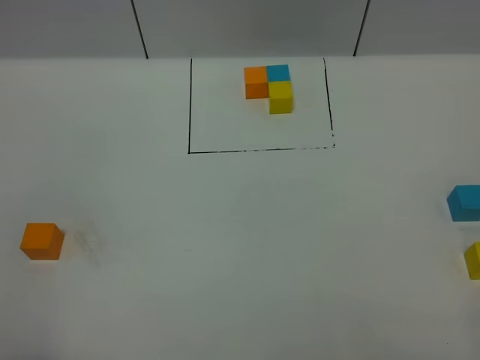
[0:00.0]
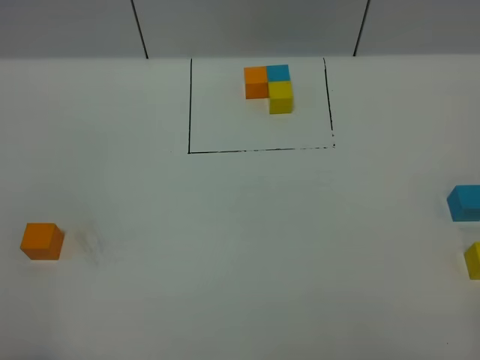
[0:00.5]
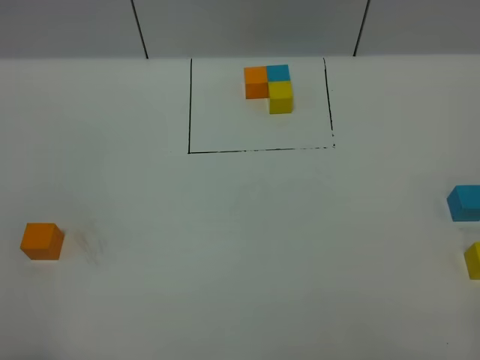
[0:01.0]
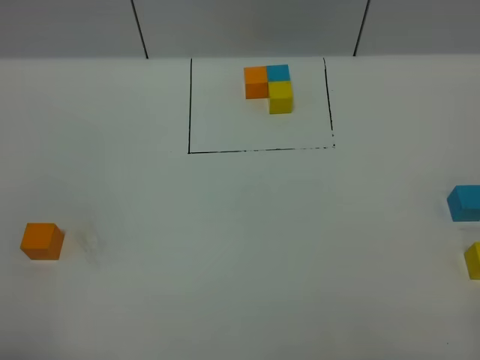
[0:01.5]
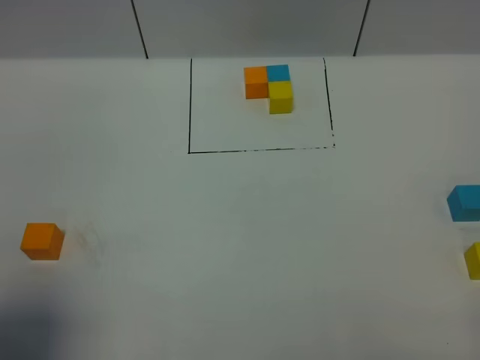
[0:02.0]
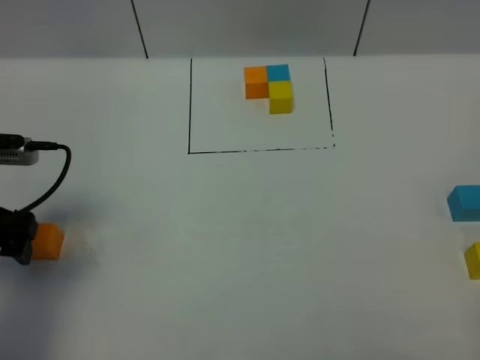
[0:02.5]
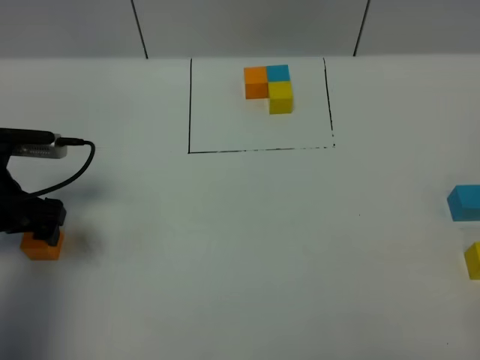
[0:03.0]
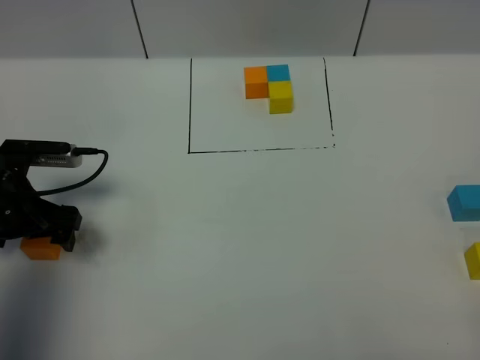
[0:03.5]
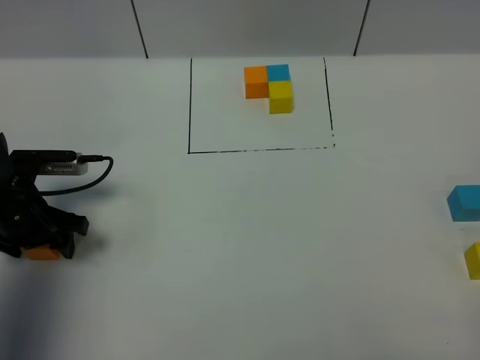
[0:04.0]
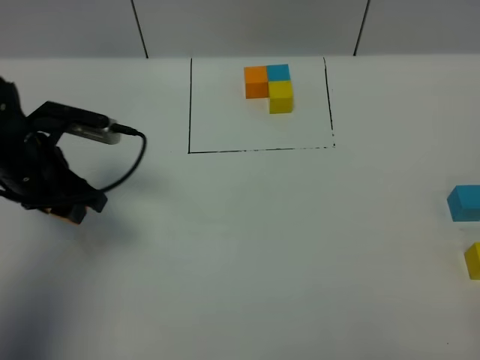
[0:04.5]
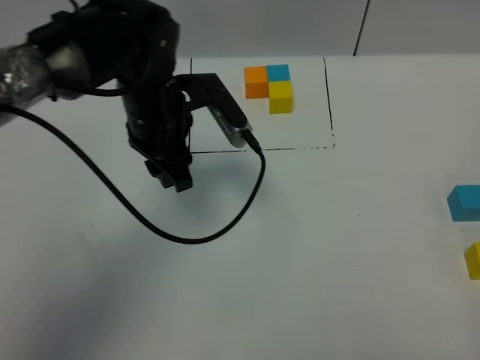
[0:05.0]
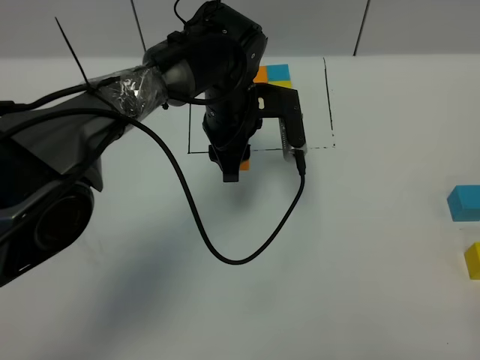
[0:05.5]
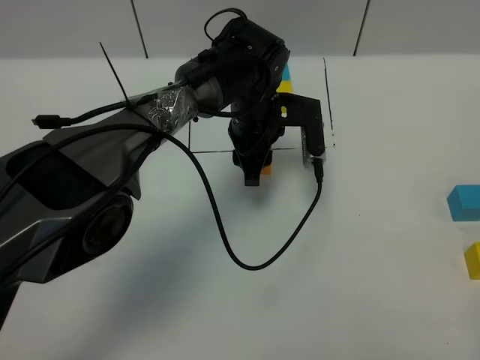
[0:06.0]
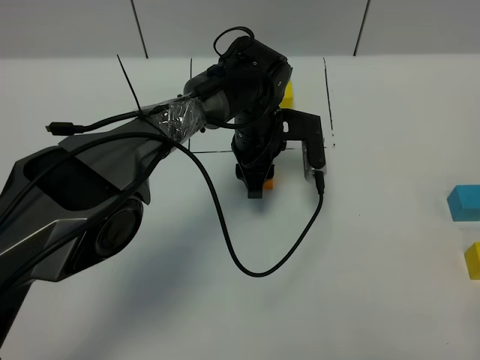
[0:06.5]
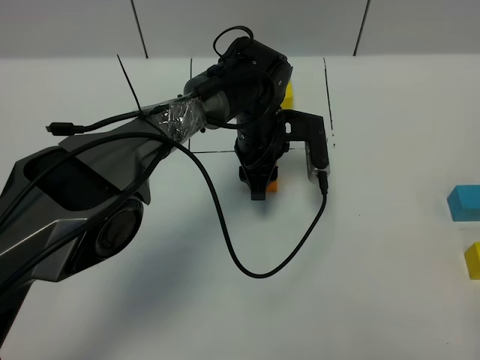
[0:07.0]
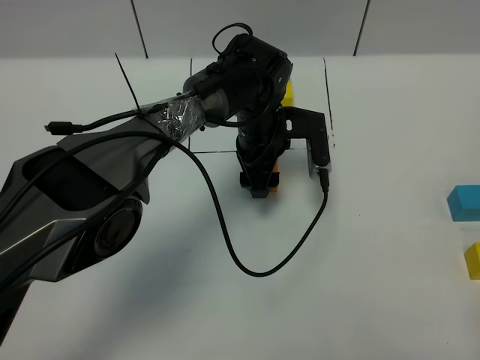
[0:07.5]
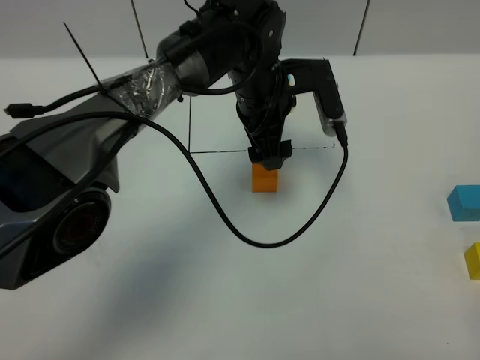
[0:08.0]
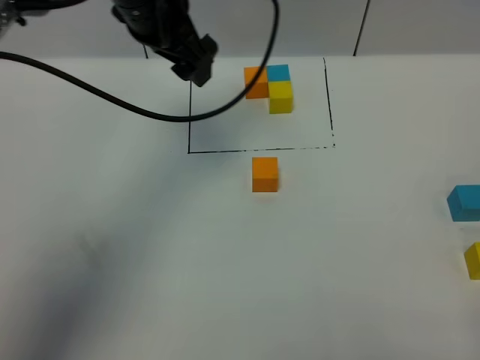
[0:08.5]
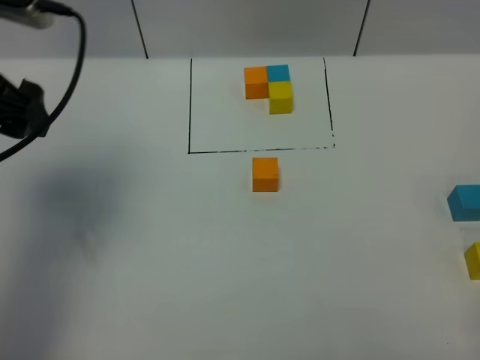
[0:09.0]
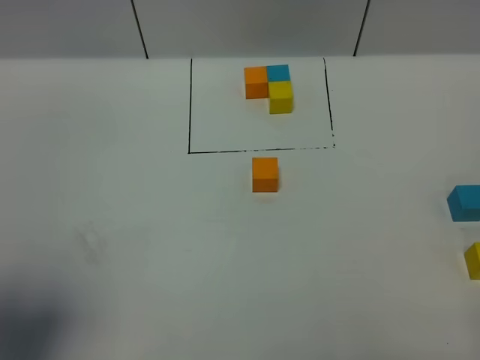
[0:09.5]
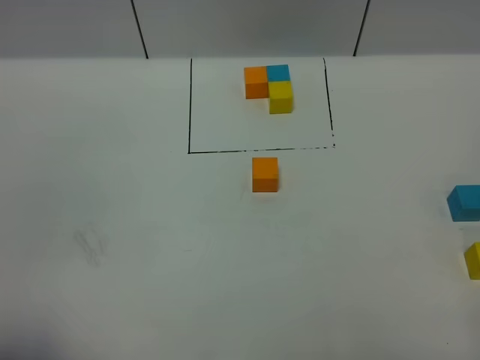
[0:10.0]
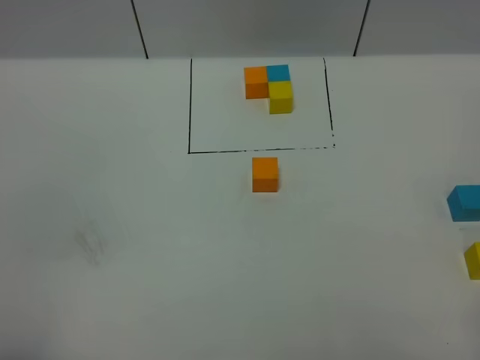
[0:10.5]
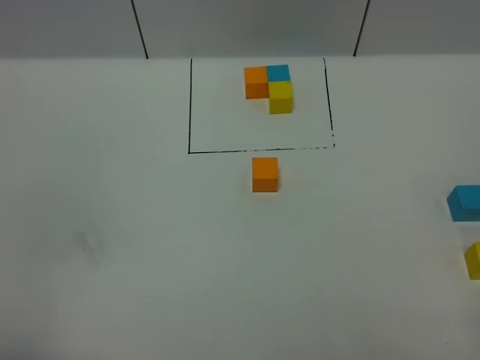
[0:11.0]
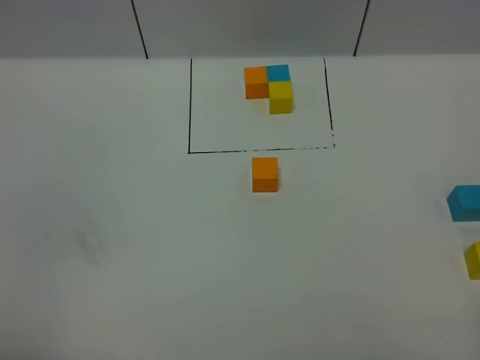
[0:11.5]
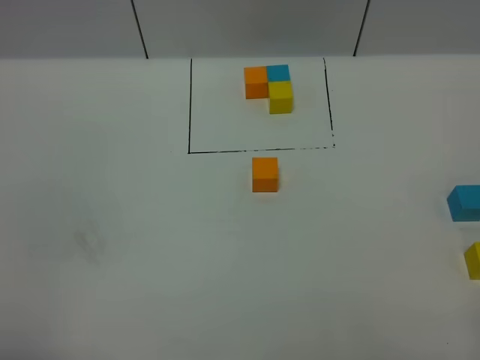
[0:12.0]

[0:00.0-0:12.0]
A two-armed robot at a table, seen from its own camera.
Task of the whole recording: According to the building block template in front, assemble the scattered blocks together.
Step, 0:00.0 to 0:07.0: Put the orange build block in the center of the table.
0:00.0 to 0:02.0: The left gripper shifts about 10 cm forward, and opens up.
0:02.0 to 0:04.0: The left gripper moves downward and forward, roughly 30 cm, and closes up.
0:04.0 to 0:06.0: The left gripper shifts roughly 35 cm to the right and forward, and closes.
0:06.0 to 0:08.0: The left gripper travels upward by roughly 5 cm, and opens.
0:08.0 to 0:10.0: The left gripper travels backward and to the left by approximately 50 cm.

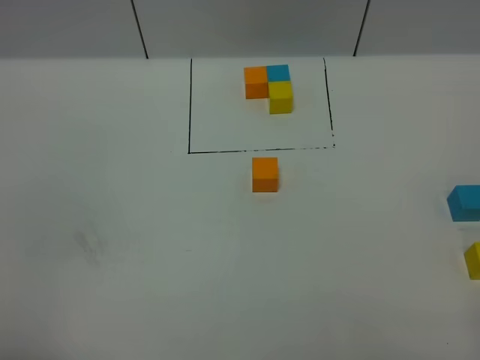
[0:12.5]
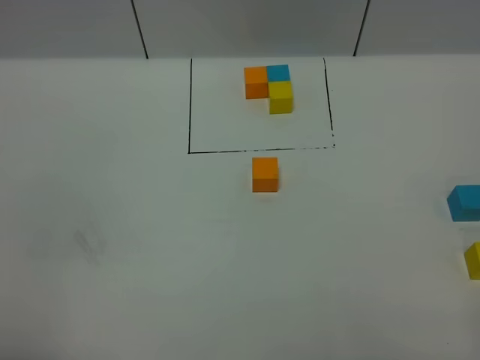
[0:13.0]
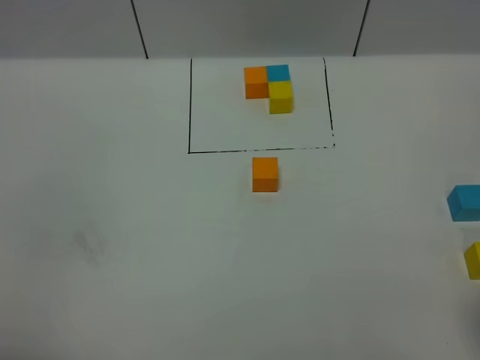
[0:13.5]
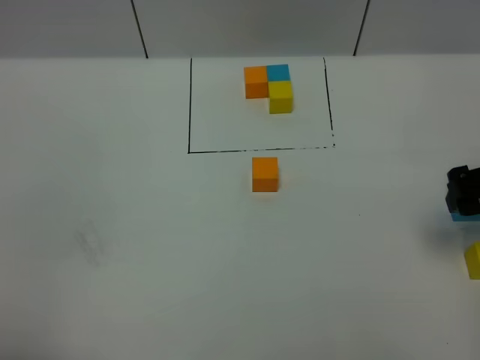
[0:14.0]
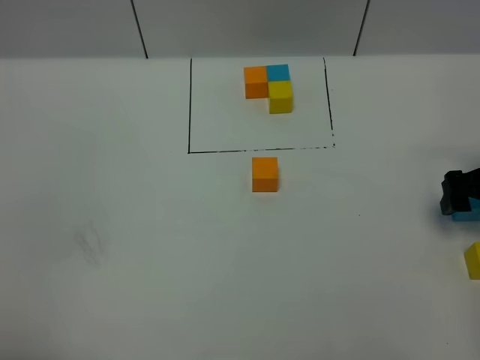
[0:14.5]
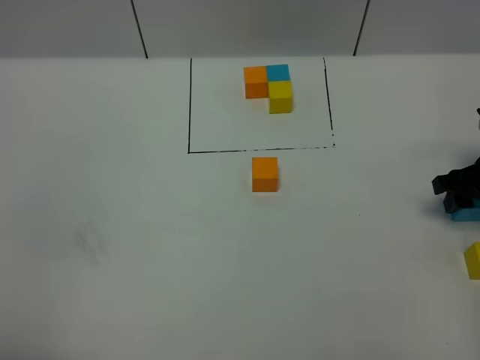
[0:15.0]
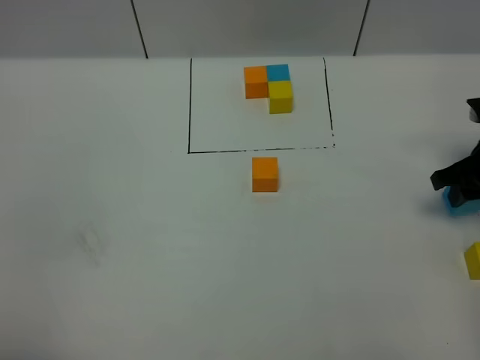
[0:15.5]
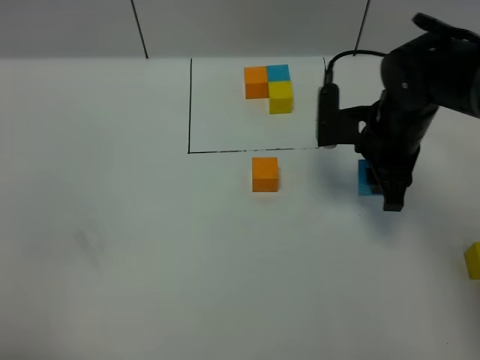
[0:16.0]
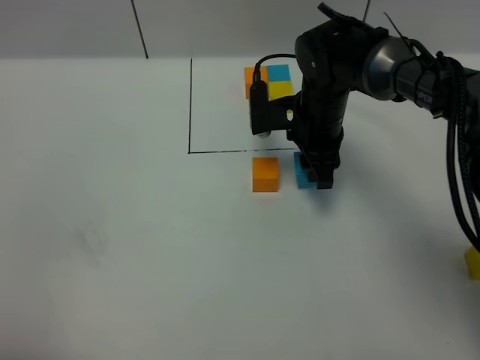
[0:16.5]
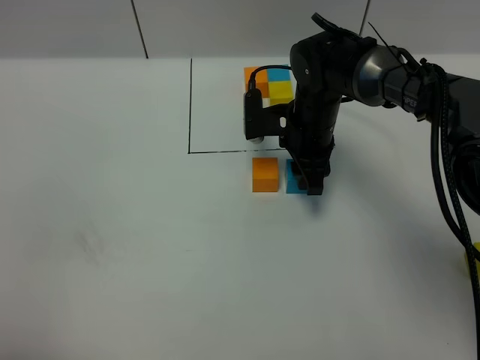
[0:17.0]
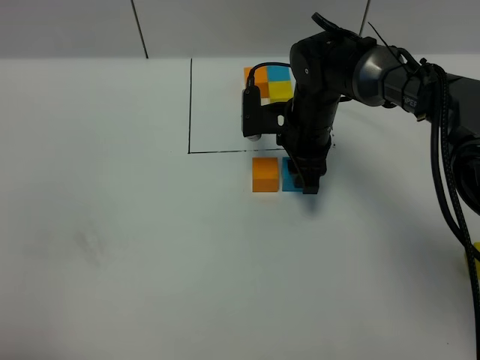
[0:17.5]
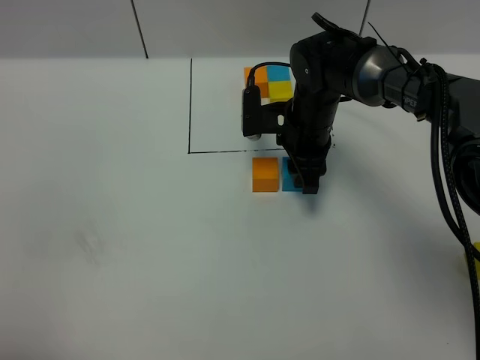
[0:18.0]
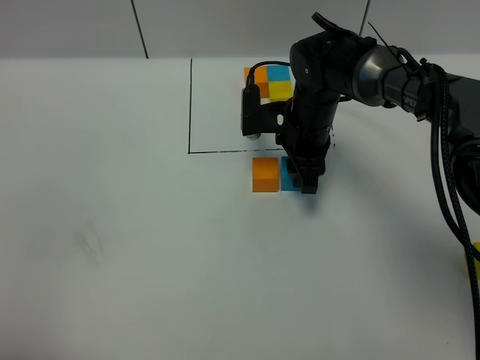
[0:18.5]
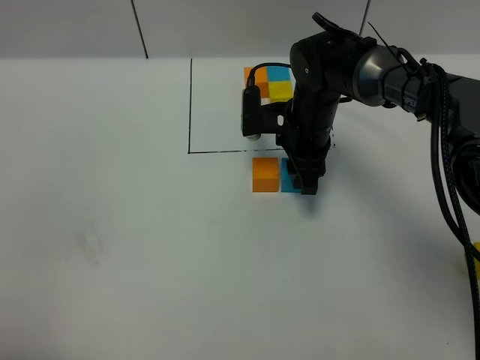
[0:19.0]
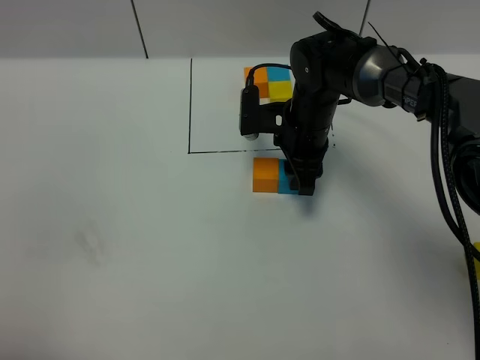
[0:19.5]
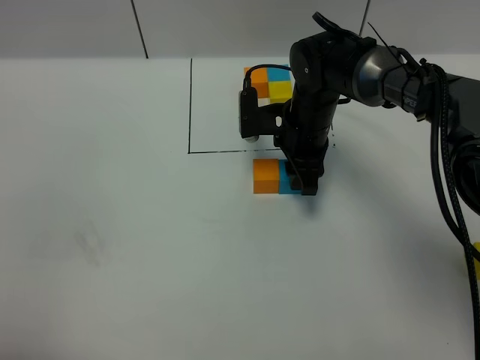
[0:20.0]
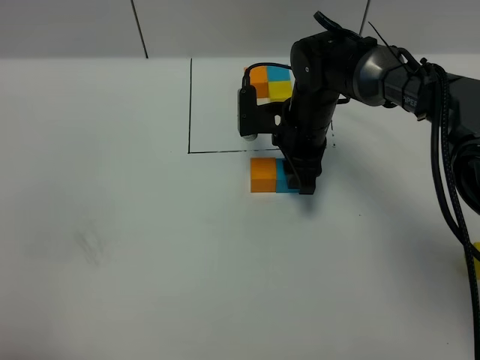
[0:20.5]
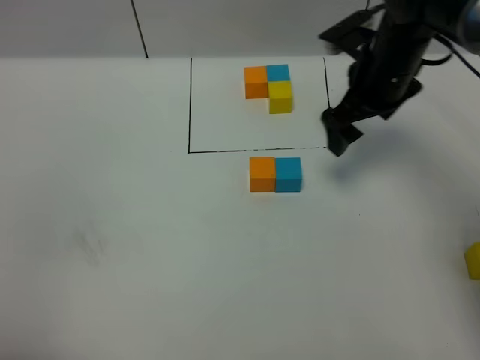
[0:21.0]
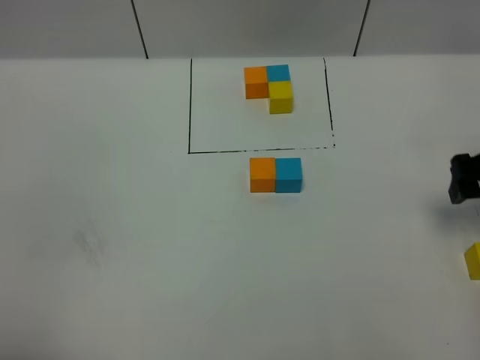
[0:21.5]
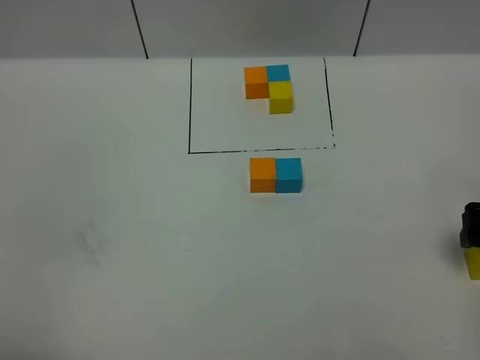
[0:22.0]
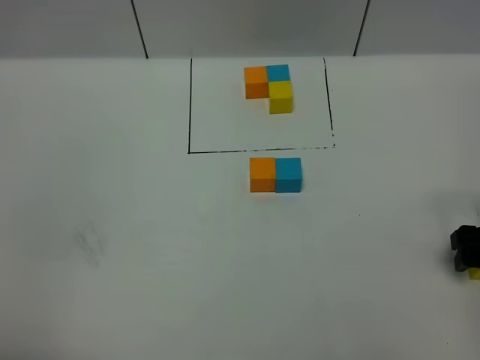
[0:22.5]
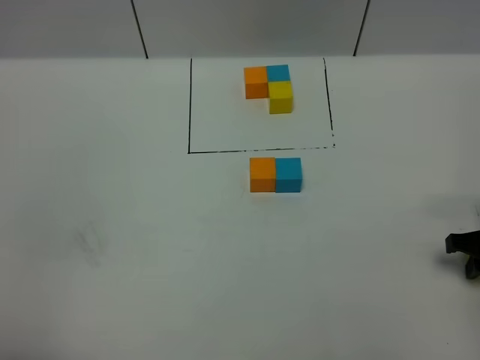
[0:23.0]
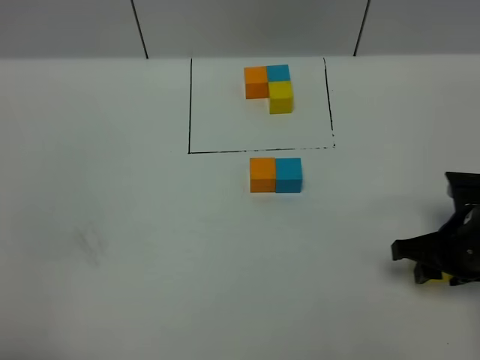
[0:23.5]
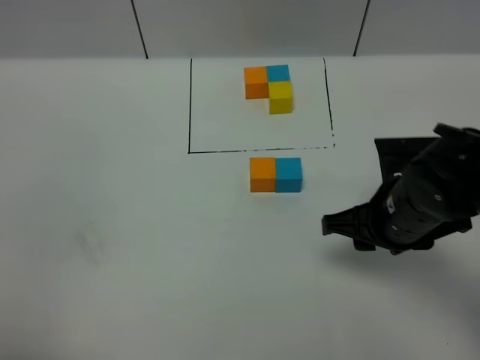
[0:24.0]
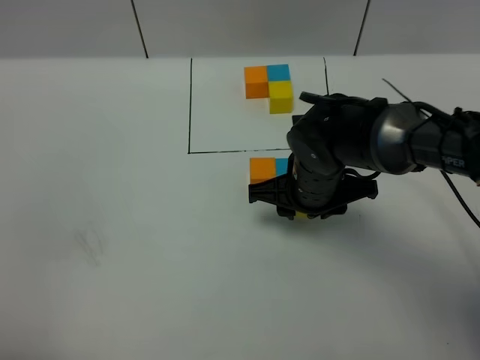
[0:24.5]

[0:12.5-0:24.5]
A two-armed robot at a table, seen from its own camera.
Task of the whole recording: According to the building block template in front, assemble the scattered blocks together.
Step, 0:12.5 to 0:20.0: Put the blue build block on the right of the orange build block.
0:12.5 to 0:14.5: The right gripper heads forward, covering about 30 cm, and opens.
0:14.5 to 0:16.5: The right gripper moves to the left and forward, roughly 25 cm, and closes up.
0:16.5 to 0:18.5: The grippers stay close to where they were, moving slightly.
0:18.5 to 0:20.5: The two grippers keep their place.
0:20.5 to 0:22.5: The right gripper heads to the right and backward, covering roughly 30 cm, and opens its fingers.
0:22.5 to 0:24.5: The right gripper travels to the left by roughly 25 cm, and closes its fingers.

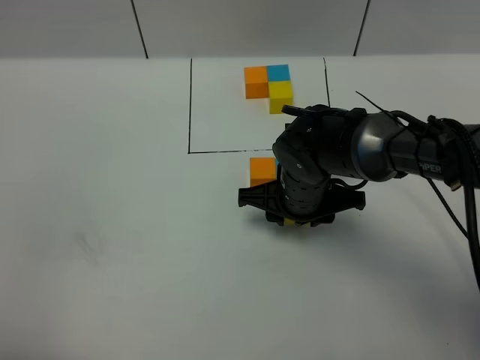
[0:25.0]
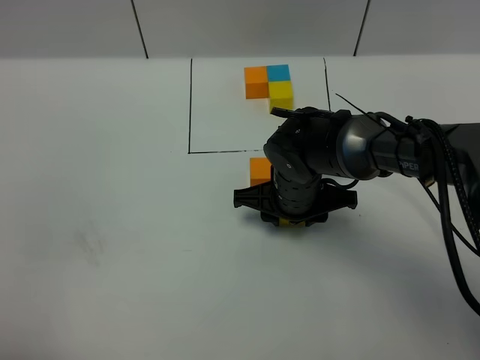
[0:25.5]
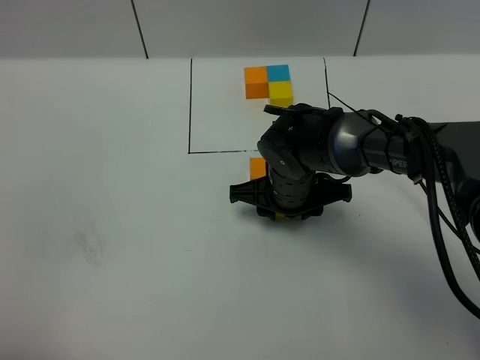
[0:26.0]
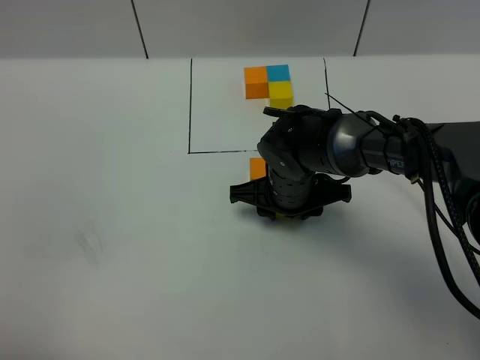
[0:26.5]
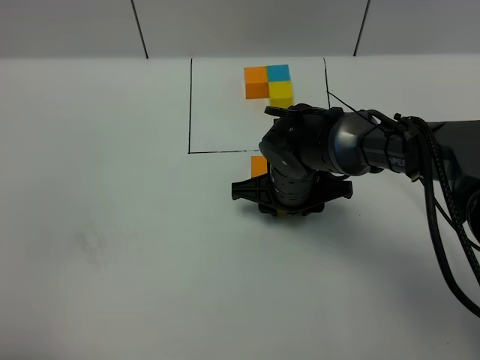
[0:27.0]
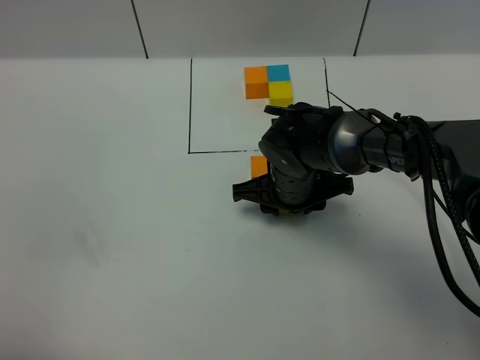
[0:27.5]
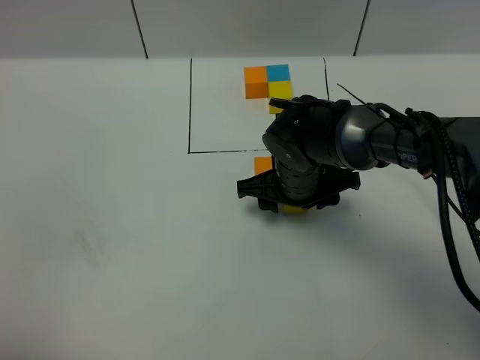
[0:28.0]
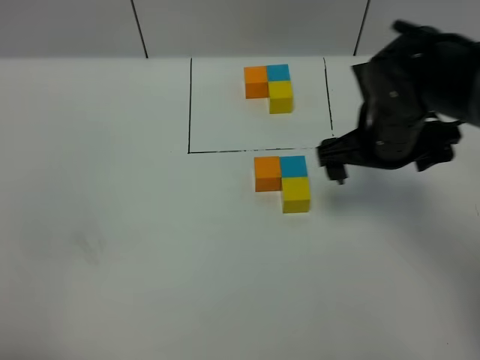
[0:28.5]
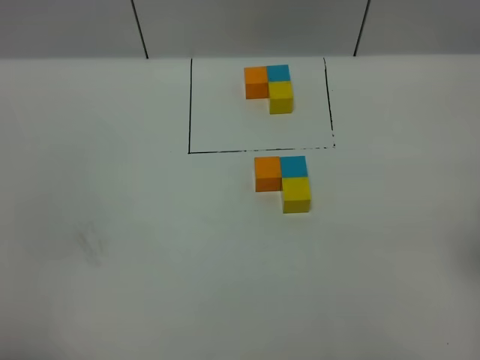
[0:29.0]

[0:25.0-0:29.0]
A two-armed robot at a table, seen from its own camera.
Task of the whole recording: According to the building block template in front, assemble the scattered blocks together.
Step, 0:25.0 to 0:27.5: Put the yellow build block on the behind of the blue build block.
0:25.0 to 0:27.0: The grippers move only a little.
0:27.0 to 0:29.0: The right gripper goes some 35 cm to the right, upward and backward, and opens up.
